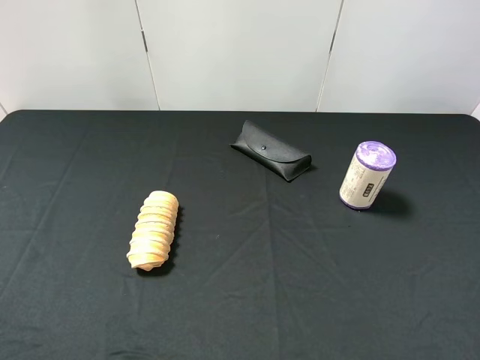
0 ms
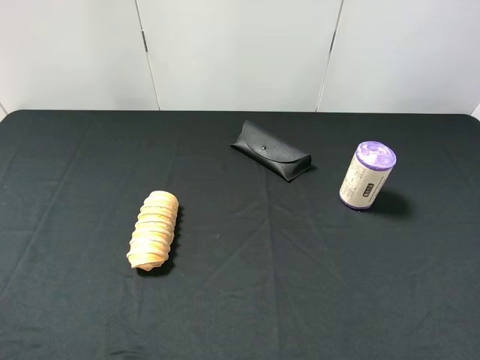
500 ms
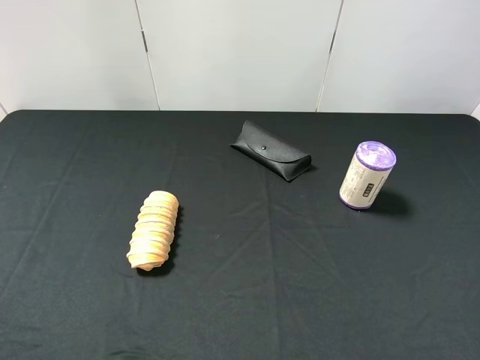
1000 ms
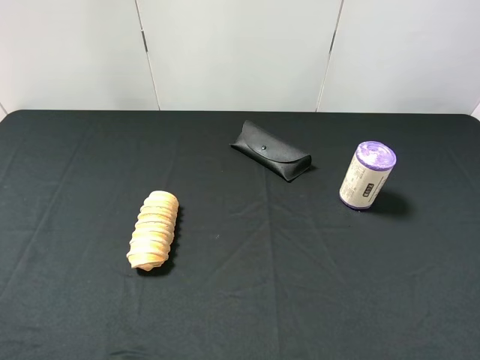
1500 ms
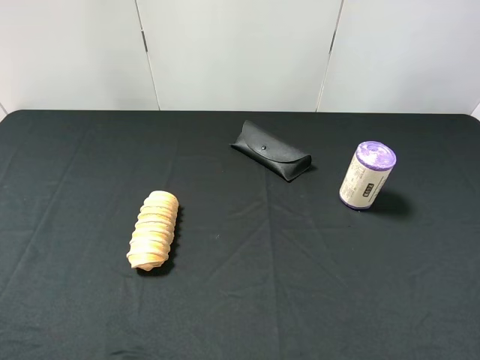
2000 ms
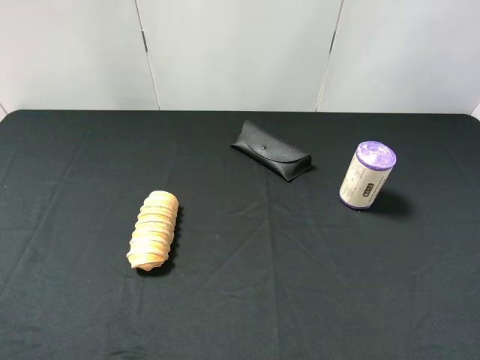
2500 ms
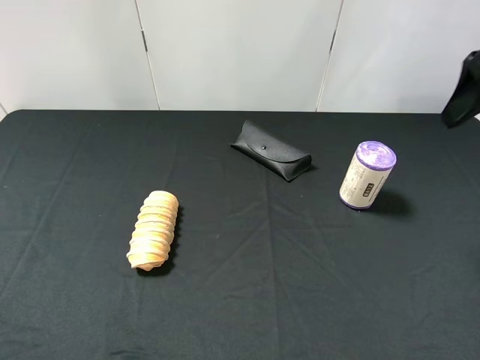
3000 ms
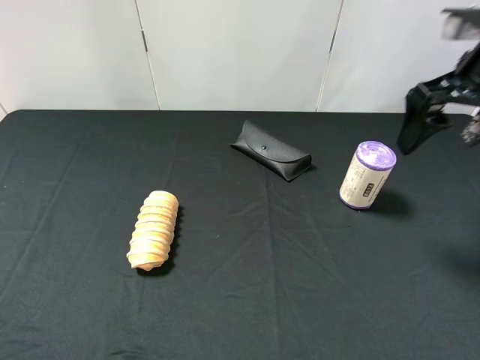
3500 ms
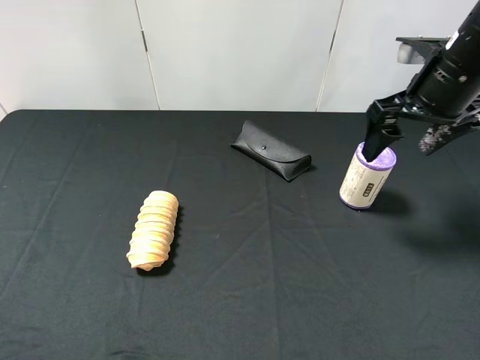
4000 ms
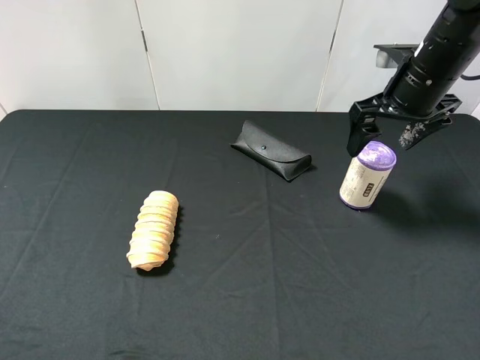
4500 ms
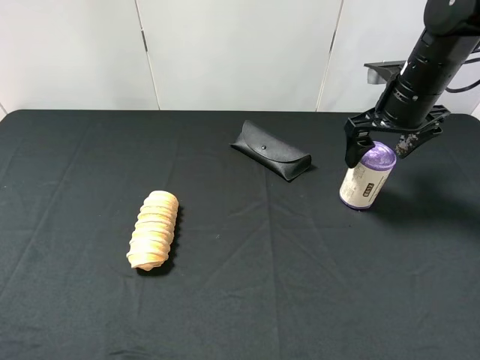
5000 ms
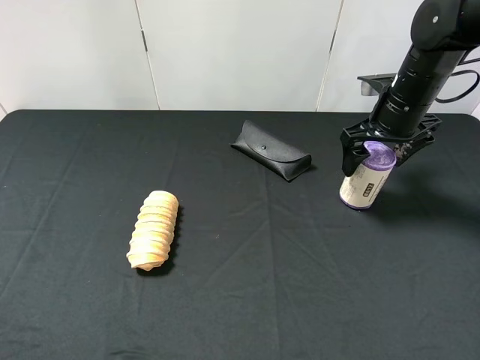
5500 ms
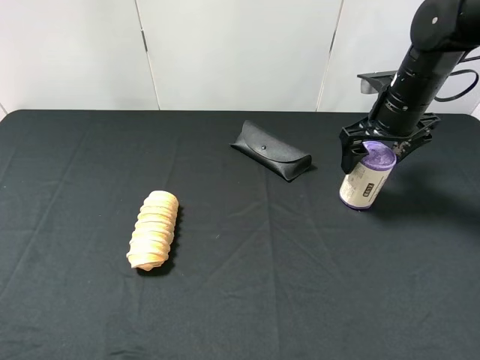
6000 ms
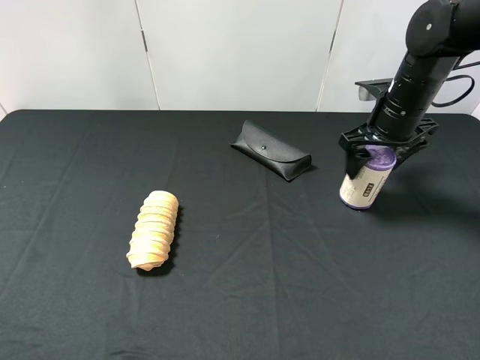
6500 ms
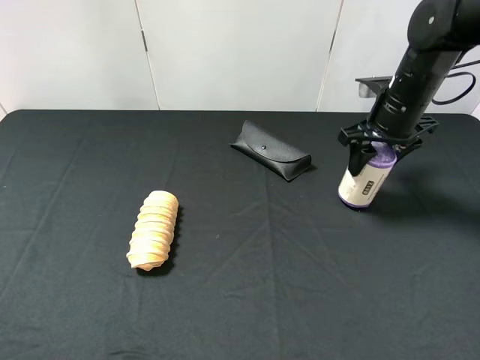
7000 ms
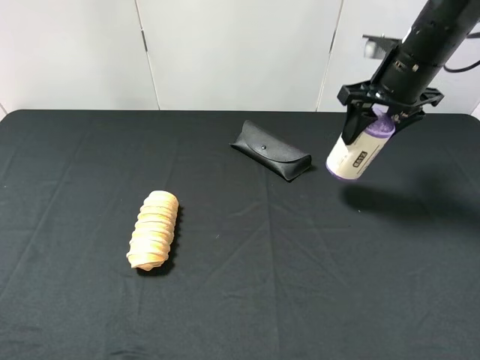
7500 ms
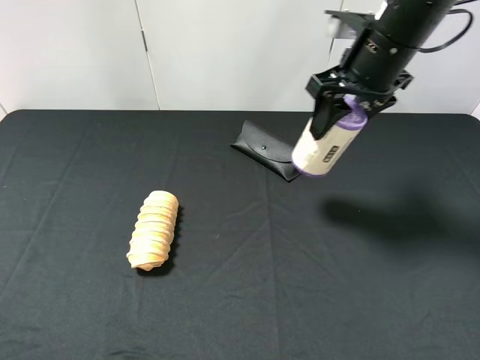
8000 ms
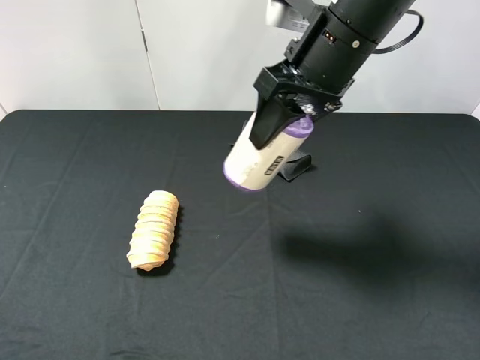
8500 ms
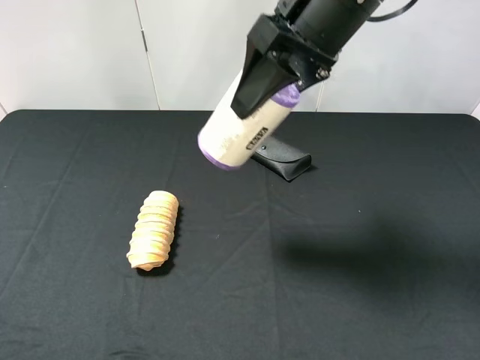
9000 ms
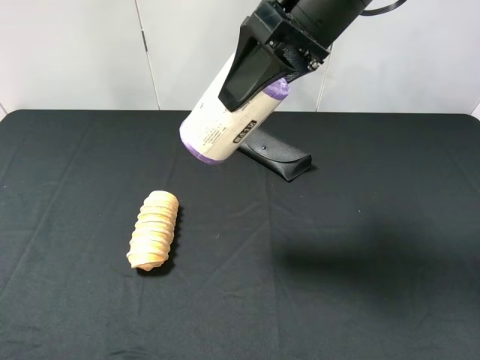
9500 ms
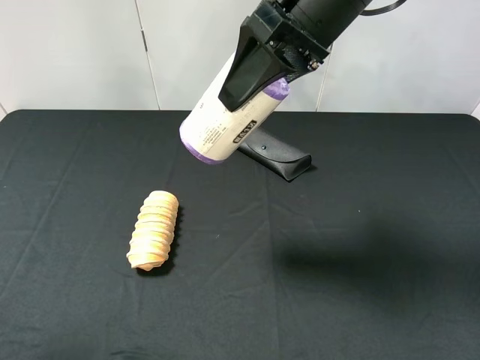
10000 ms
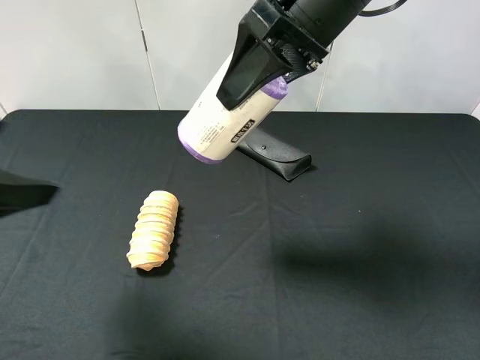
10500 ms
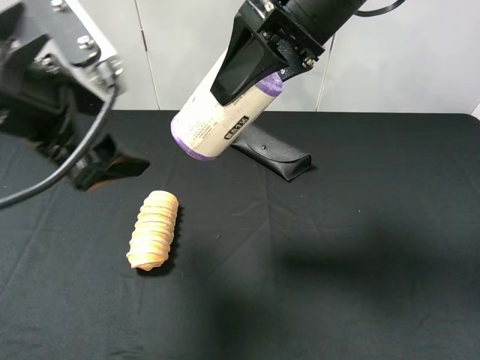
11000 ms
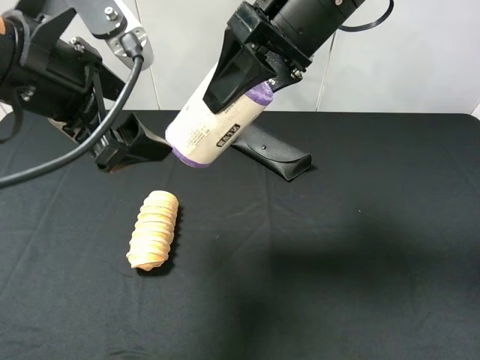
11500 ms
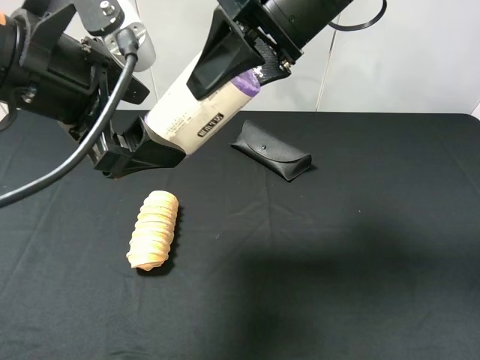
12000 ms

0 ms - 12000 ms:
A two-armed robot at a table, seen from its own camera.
Task of the whole recording: use the right gripper to pick up the item and transfer it from the right gripper to the left gripper.
Step, 0 ms - 6500 ms: Use the right gripper to grab the purple garbage bag on the right side of the table.
2000 ms - 4000 ms: The right gripper goes roughly 30 cm forward.
4000 ms - 6000 ms: The right gripper is displaced downward and forward by roughly 10 cm.
6000 ms - 8000 ms: The right gripper travels upward and to the left by roughly 15 cm, and closes.
8000 ms - 10000 ms: The right gripper travels to the left and upward by roughly 10 cm, while the left gripper goes some 5 cm forward.
10000 ms - 12000 ms: The left gripper moves to the right and forward, some 20 cm.

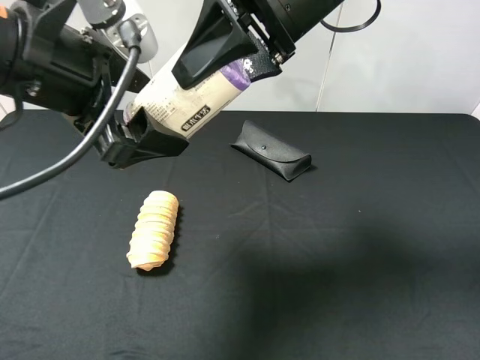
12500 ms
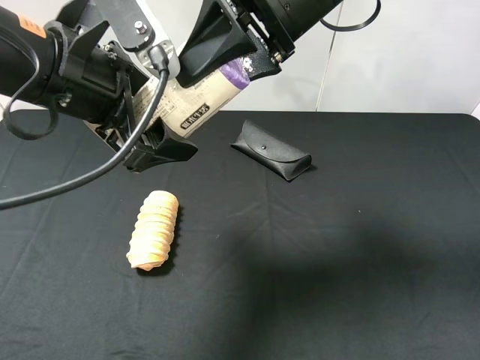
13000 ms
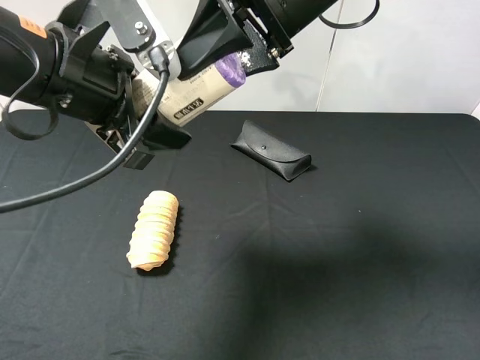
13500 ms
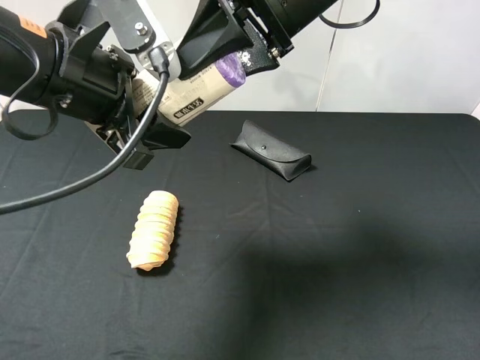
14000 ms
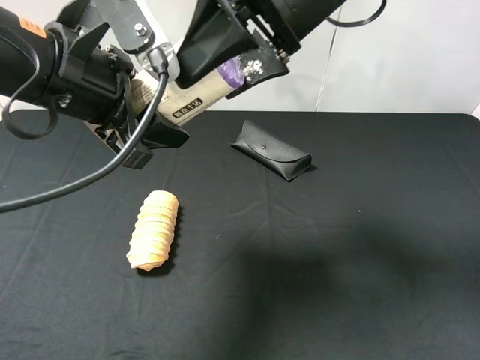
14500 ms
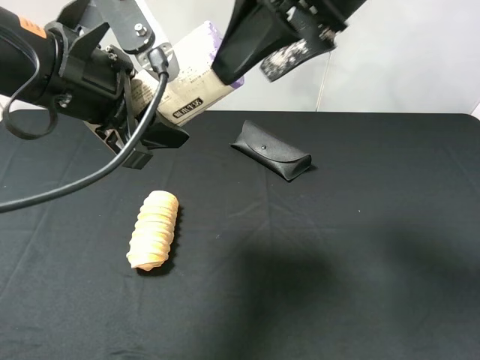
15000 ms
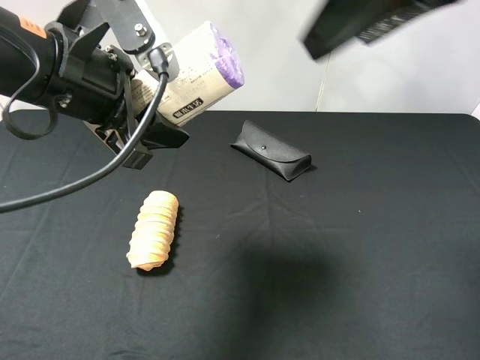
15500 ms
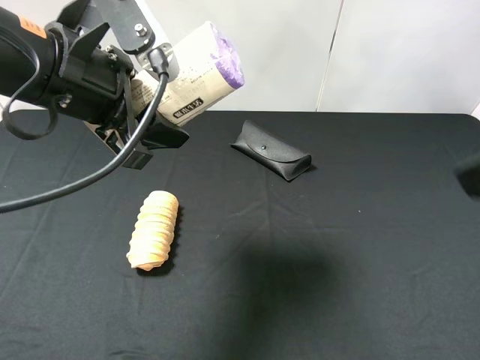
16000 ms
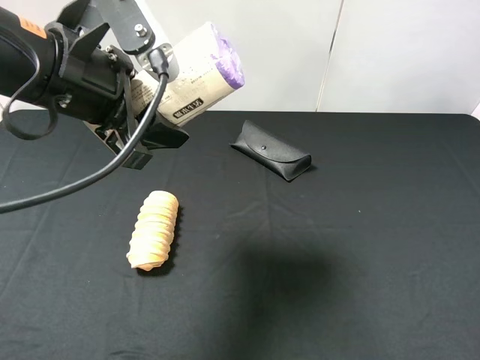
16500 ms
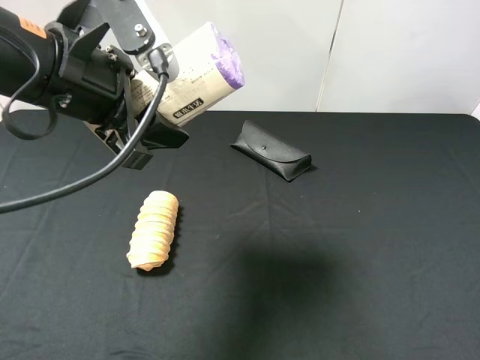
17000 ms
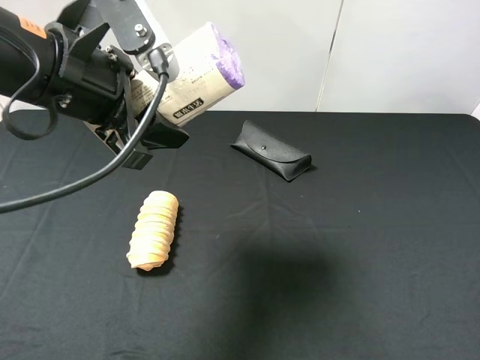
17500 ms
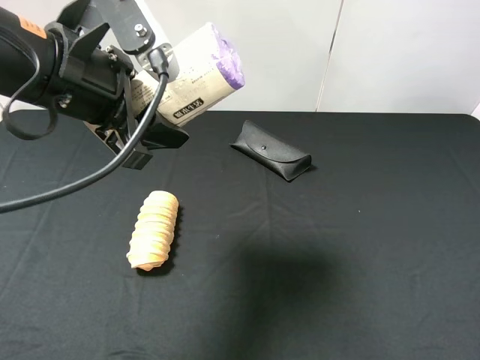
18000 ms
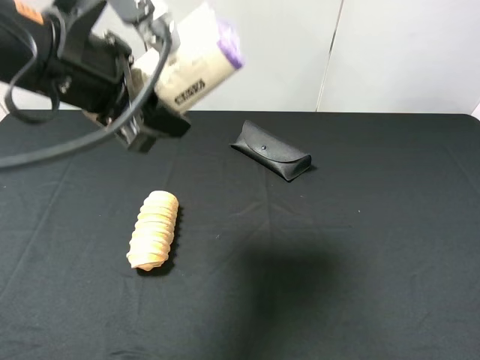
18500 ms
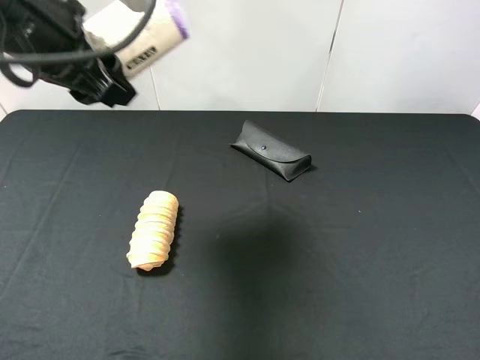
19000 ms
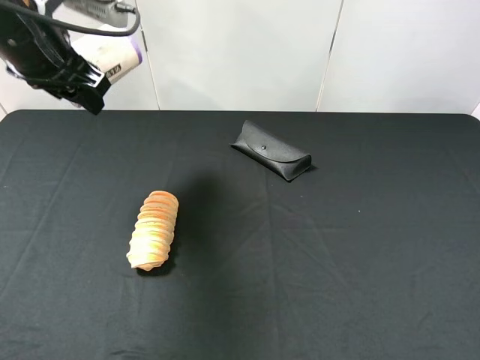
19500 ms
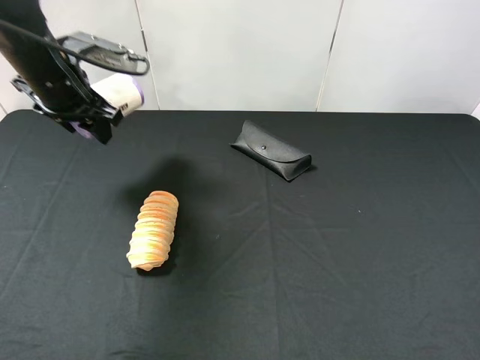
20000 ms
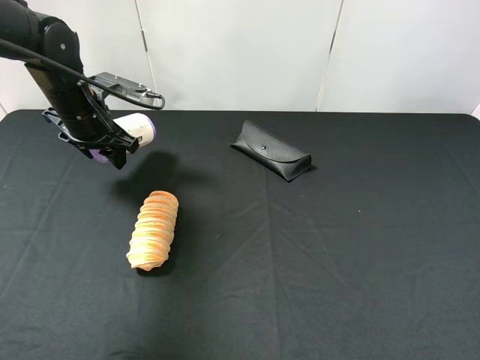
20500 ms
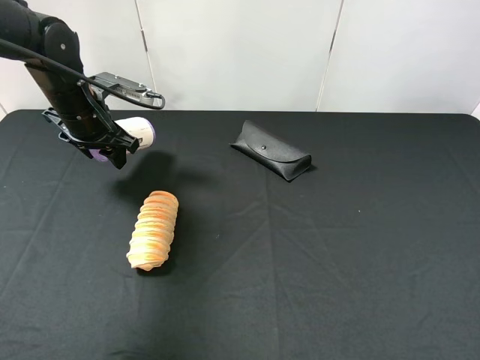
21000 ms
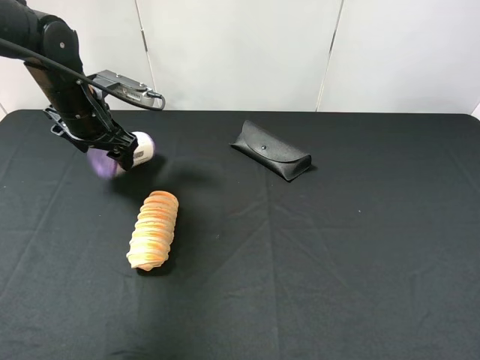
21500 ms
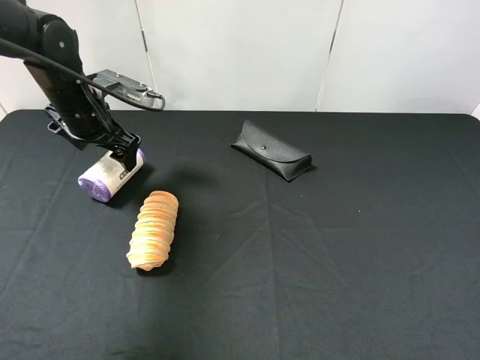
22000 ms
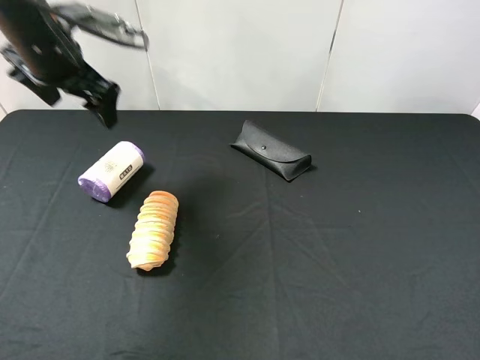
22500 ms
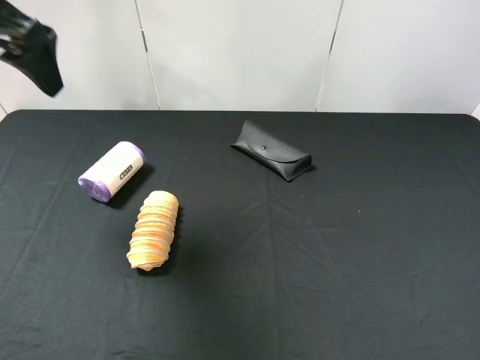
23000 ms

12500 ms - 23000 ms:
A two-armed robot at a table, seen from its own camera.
Task of the whole recording: use the right gripper to pick up the item and transfer it from the right gripper to the left gripper.
Step, 14500 ms - 21500 ms: The left gripper places purple garbage bag on the left side of the table.
12500 ms - 14500 ms: The right gripper opens. Meanwhile the left gripper closes its fingers.
14500 ms - 16500 ms: The right gripper travels backward and to the right by approximately 35 cm.
16500 ms - 19000 ms: The left gripper changes place by some 5 cm.
19000 ms - 21000 ms: The left gripper shifts about 20 cm downward and forward.
21000 ms - 23000 ms: The left gripper heads upward and backward, covering about 20 cm, and opens up.

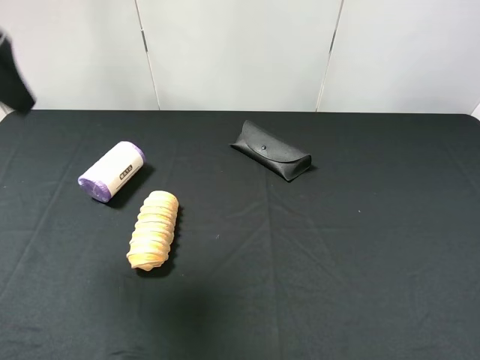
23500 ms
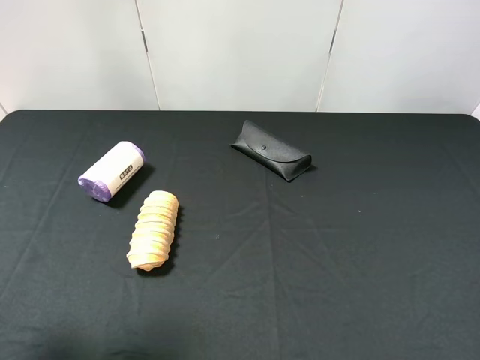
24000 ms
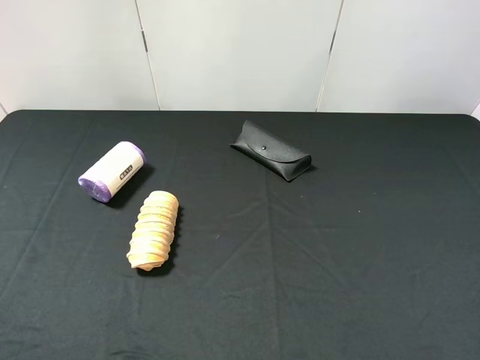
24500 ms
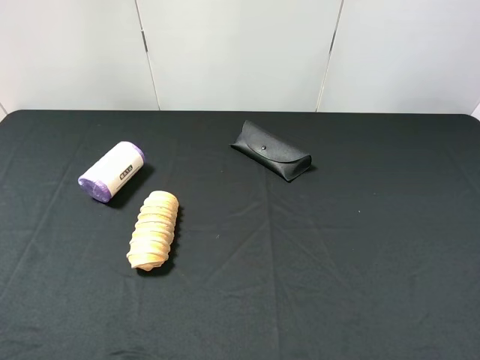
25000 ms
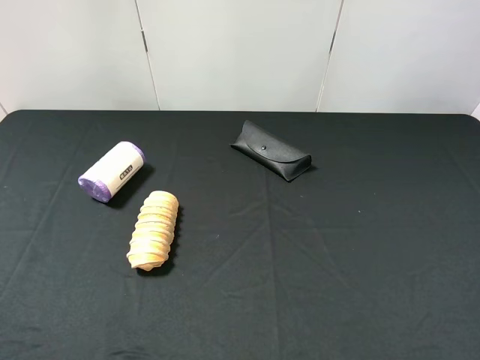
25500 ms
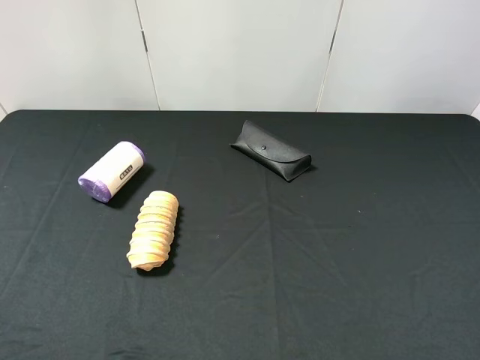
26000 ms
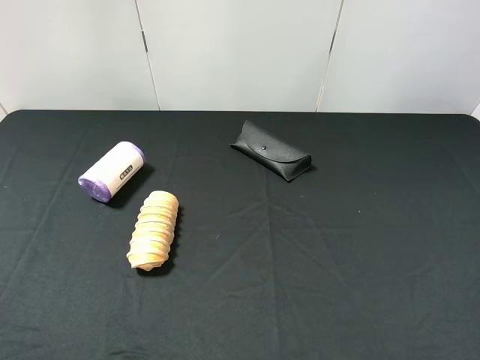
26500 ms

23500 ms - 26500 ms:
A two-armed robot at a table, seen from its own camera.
Task of the whole recording: use the right gripper to pick up the item and transfer it from the right gripper to the left gripper.
23500 ms - 25000 ms: The left gripper is displaced backward by roughly 25 cm.
25000 ms - 26500 ms: The two grippers keep their place.
